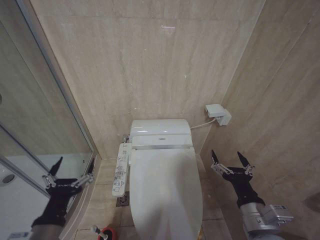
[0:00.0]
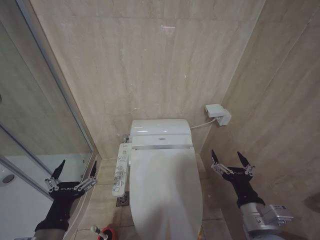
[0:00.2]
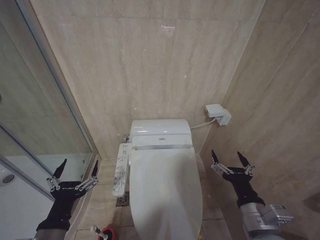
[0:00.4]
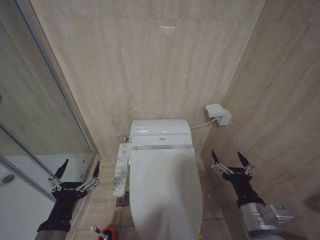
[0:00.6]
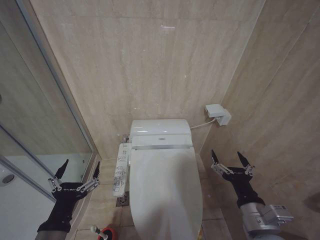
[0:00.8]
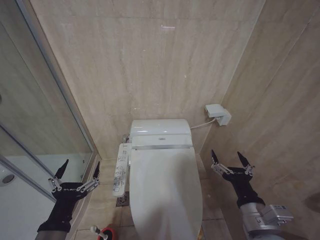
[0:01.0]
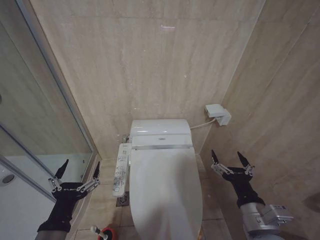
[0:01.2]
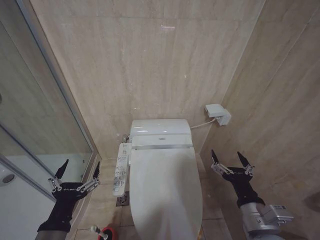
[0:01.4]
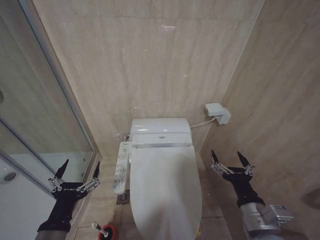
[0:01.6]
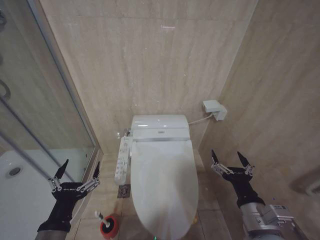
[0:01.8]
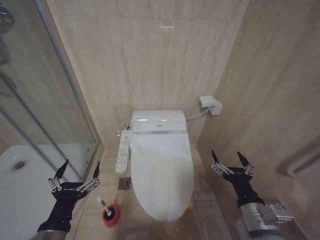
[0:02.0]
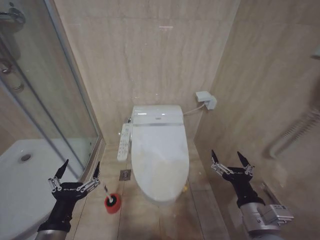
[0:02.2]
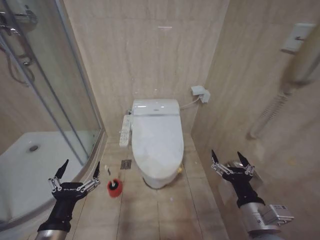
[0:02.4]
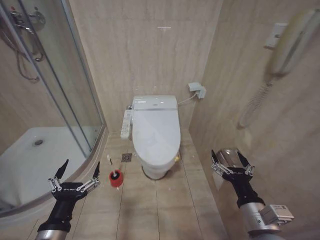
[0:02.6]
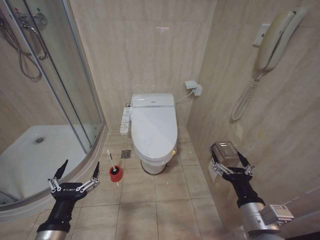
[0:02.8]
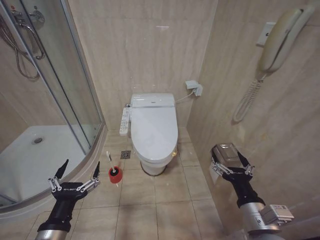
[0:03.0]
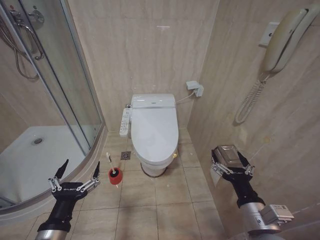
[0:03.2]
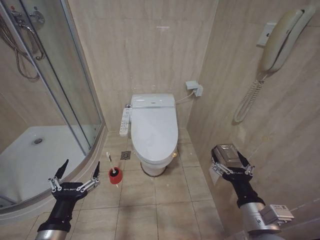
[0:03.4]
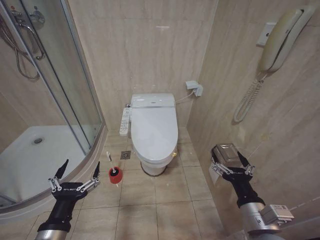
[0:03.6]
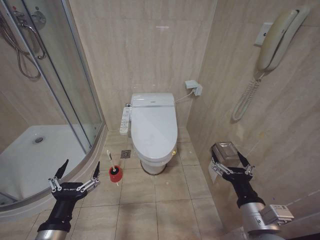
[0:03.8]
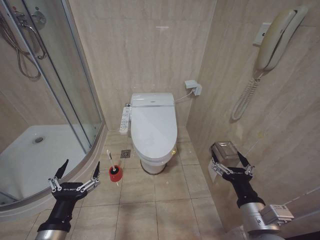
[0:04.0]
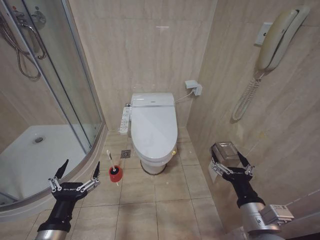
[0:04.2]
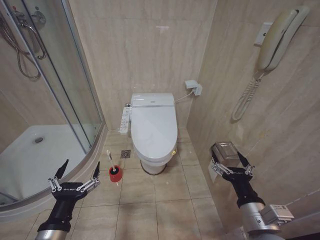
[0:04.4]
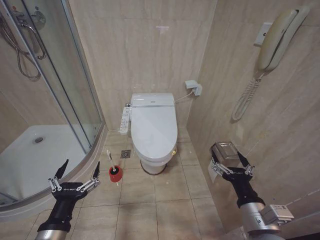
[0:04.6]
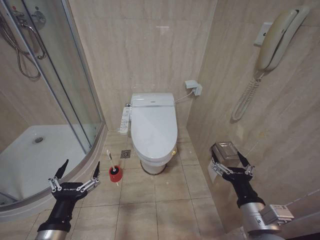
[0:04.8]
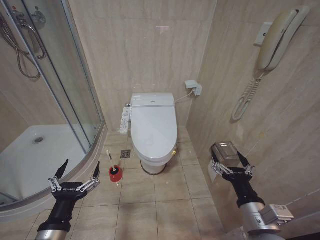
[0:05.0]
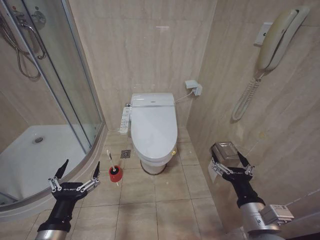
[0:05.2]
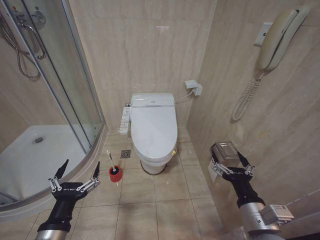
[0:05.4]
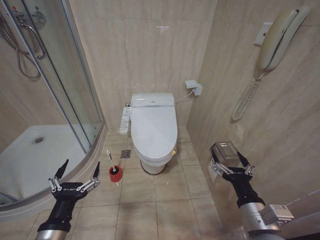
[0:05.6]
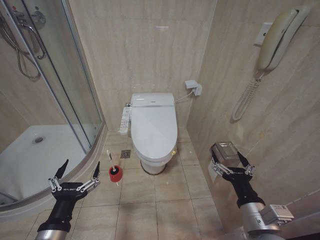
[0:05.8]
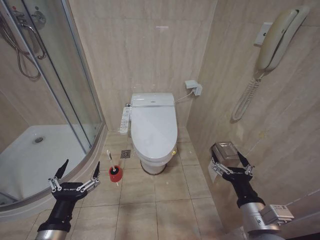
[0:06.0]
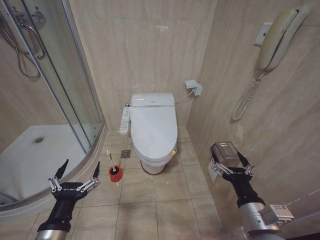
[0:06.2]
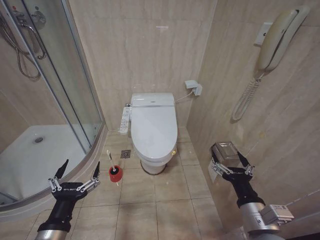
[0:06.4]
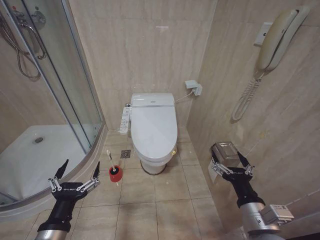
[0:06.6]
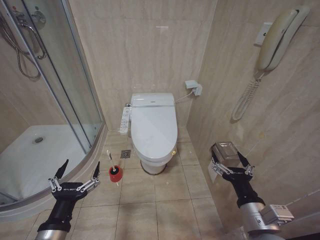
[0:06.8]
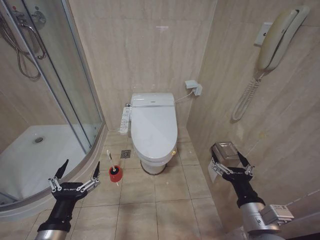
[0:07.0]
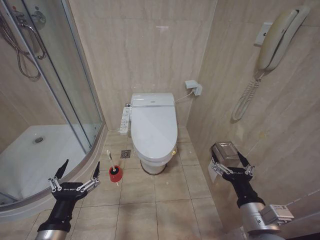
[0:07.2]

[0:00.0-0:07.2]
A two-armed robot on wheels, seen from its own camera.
Task of the whole recording: Open the toilet lid, clean the toilet bowl with a toilet brush, close the toilet lid, and flush.
0:00.0 to 0:01.4: The grippers make only small movements.
0:02.8 to 0:07.2: The two grippers keep their place.

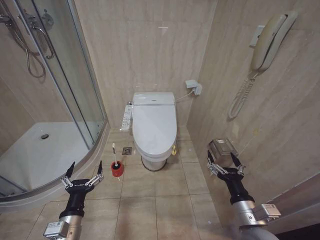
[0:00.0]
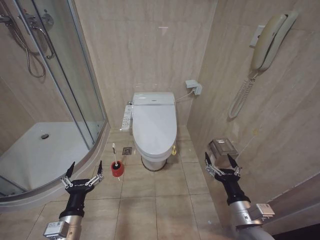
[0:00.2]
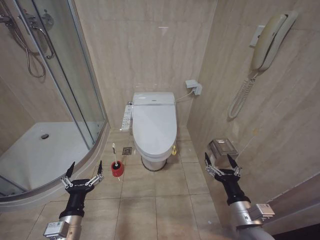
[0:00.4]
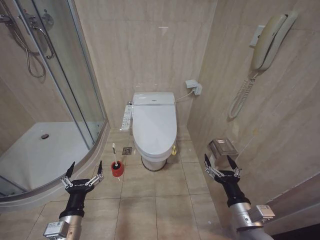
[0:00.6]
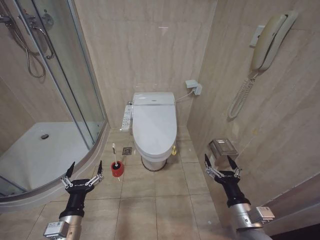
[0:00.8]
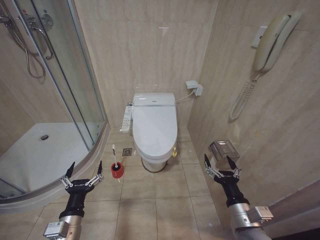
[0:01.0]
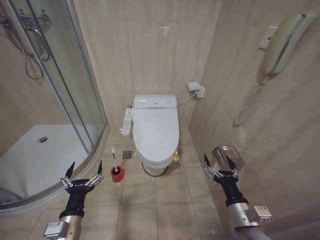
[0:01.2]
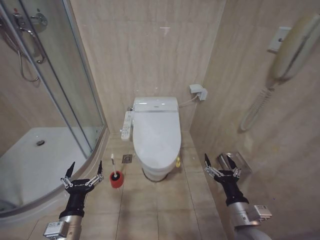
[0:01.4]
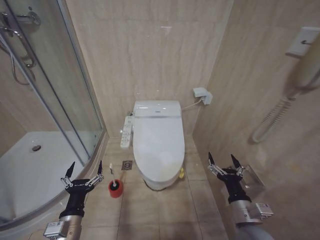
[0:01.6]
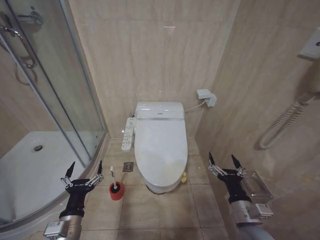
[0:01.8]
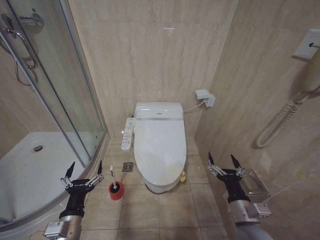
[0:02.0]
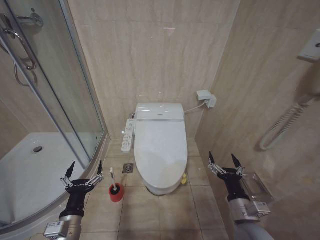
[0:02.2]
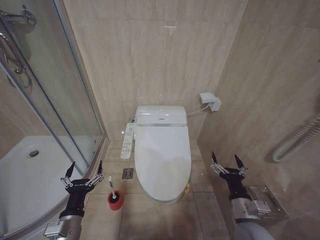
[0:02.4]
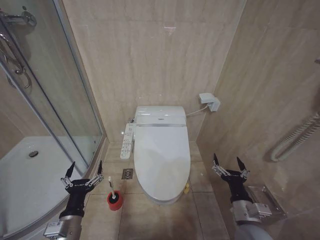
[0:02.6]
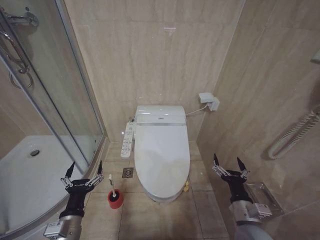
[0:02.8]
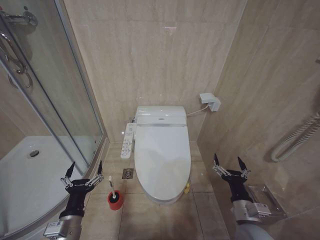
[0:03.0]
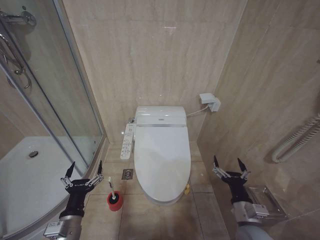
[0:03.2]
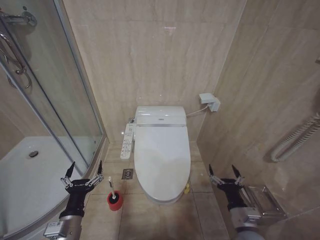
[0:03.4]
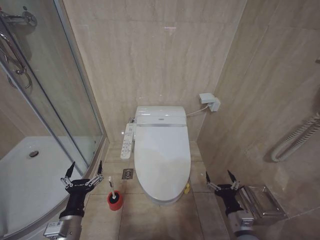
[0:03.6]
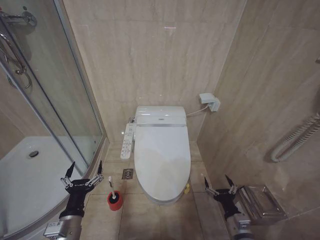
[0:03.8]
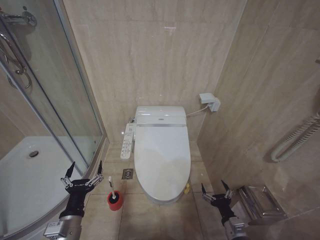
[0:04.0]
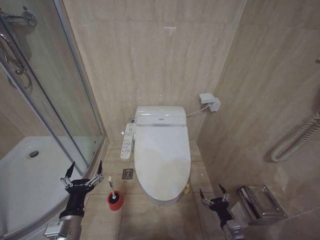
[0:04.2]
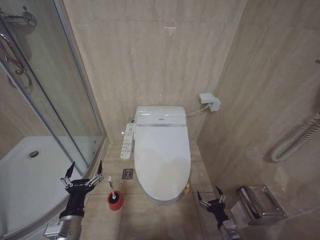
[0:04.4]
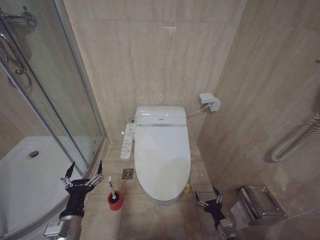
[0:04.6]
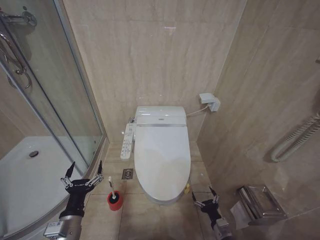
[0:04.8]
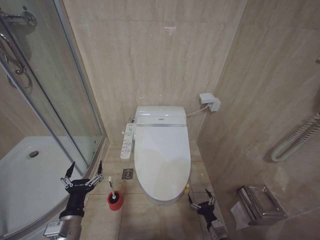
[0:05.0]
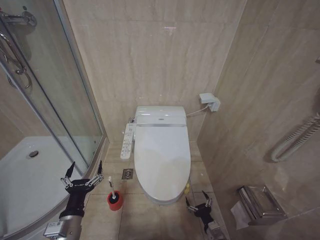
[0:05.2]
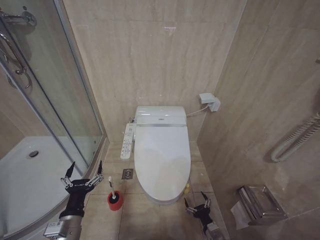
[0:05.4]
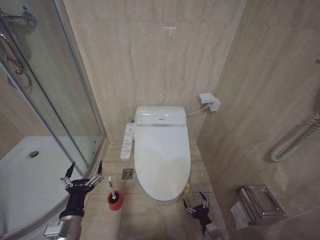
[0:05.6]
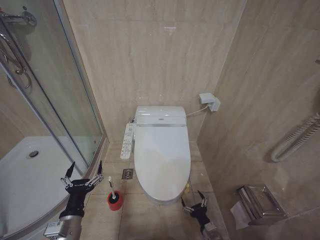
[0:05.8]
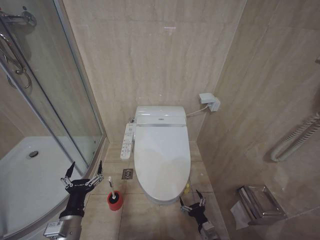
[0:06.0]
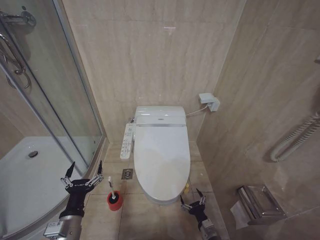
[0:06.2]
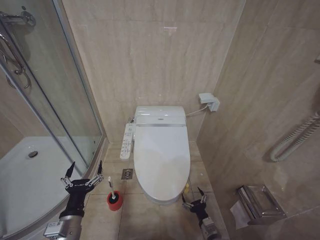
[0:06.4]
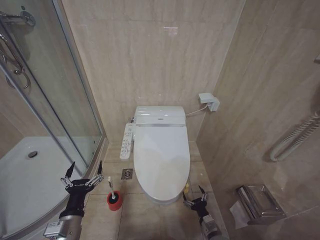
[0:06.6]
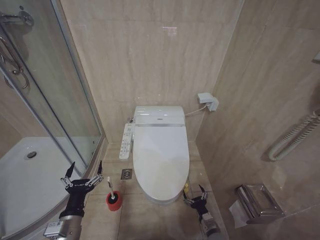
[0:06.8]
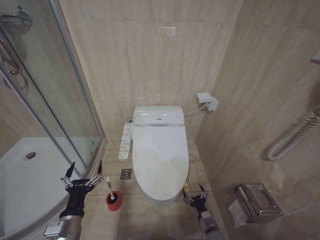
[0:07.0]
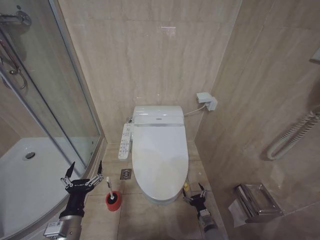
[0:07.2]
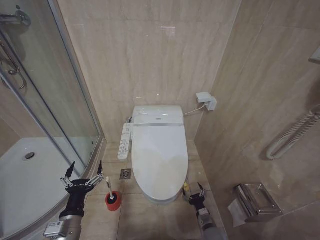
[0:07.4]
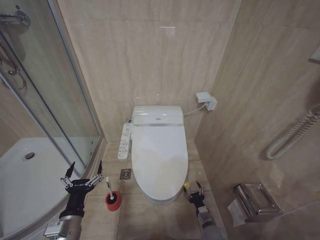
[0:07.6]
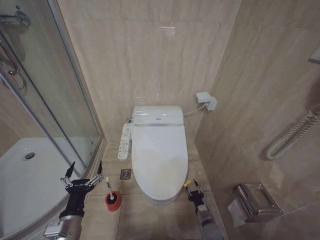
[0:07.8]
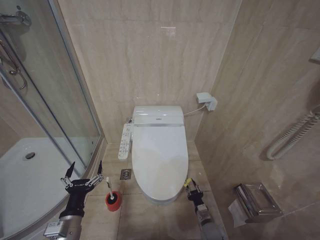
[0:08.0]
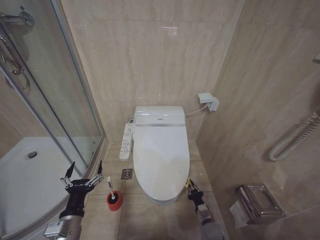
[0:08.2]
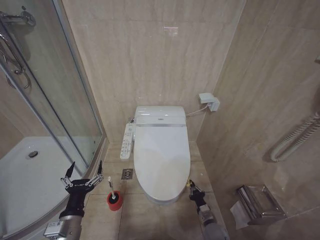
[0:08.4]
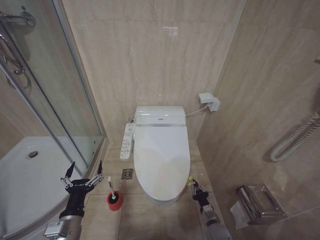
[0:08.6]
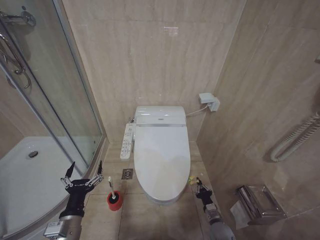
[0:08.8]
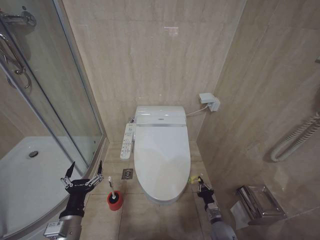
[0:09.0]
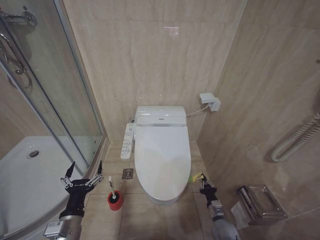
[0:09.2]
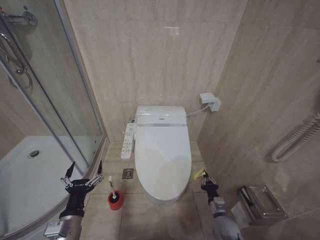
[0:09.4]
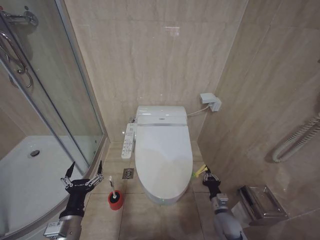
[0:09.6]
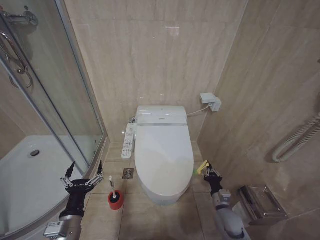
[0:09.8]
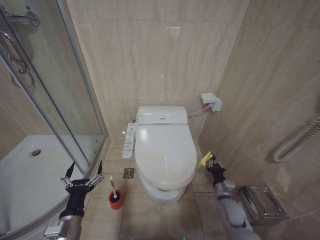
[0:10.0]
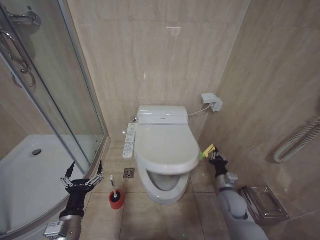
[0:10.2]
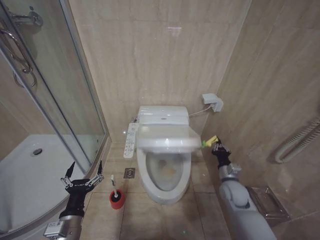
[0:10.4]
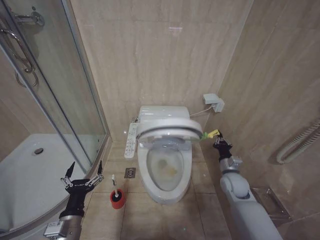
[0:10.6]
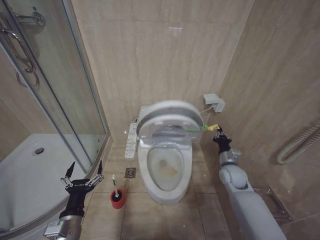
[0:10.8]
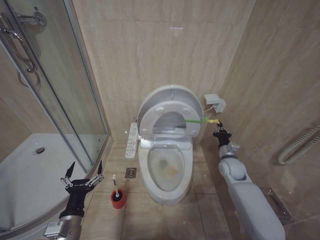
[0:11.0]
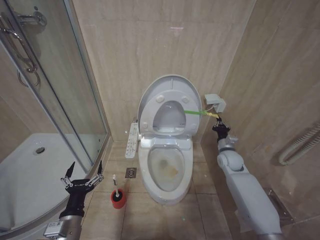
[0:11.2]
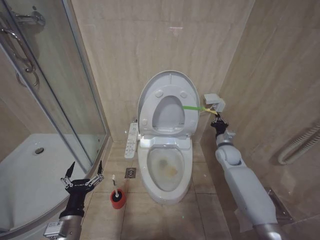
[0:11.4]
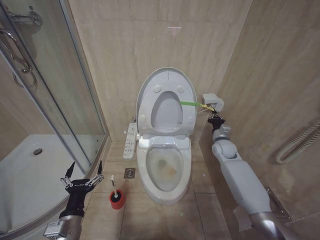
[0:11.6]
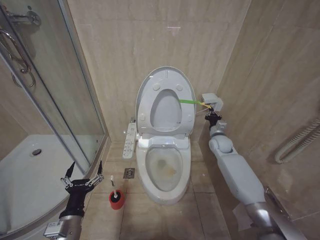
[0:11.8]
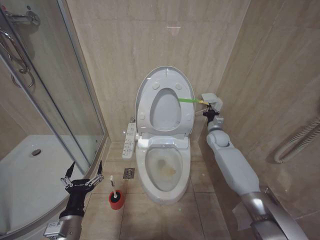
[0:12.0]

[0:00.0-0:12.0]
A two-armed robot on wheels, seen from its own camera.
Task of the whole recording: Open the toilet lid, clean the toilet bowl with a toilet brush, close the toilet lid, and flush.
0:01.6 to 0:03.0: There are only small adjustments of the grippers.
0:03.0 to 0:04.4: The right gripper shifts about 15 cm downward.
0:04.4 to 0:06.0: The right gripper shifts roughly 5 cm to the left.
0:06.0 to 0:07.6: The right gripper goes roughly 5 cm forward.
0:07.6 to 0:09.0: The right gripper closes up.
0:09.0 to 0:10.4: The right gripper goes some 20 cm upward and forward.
0:10.4 to 0:12.0: The right gripper heads forward and upward, covering roughly 25 cm.

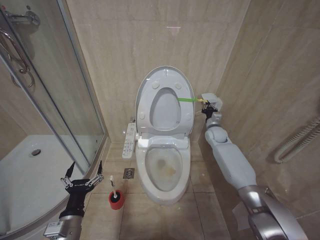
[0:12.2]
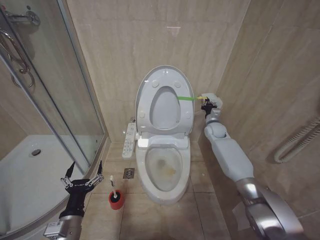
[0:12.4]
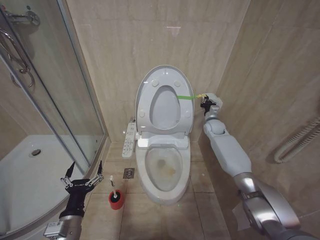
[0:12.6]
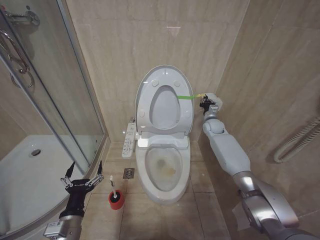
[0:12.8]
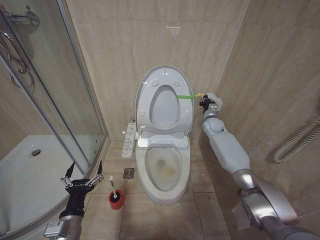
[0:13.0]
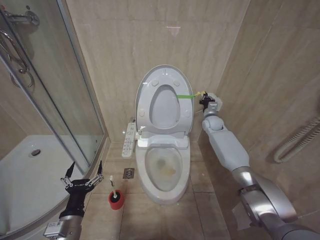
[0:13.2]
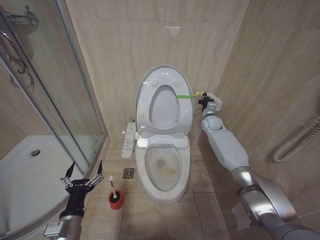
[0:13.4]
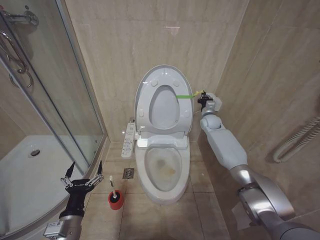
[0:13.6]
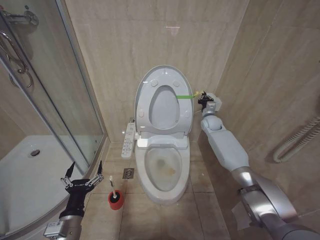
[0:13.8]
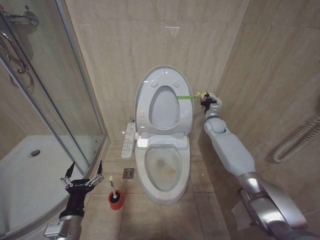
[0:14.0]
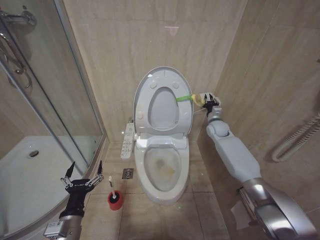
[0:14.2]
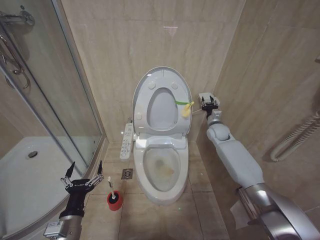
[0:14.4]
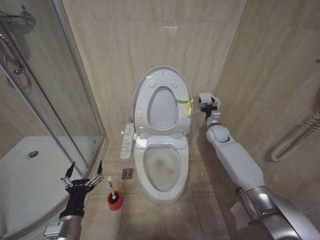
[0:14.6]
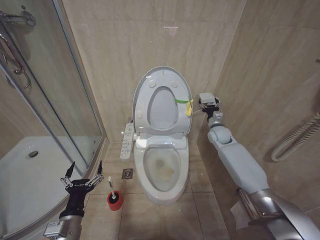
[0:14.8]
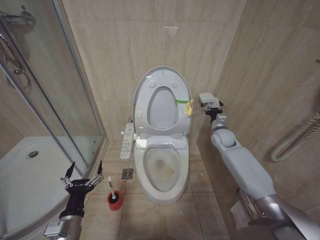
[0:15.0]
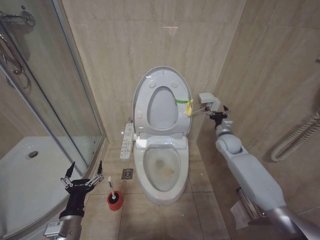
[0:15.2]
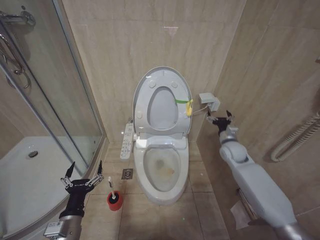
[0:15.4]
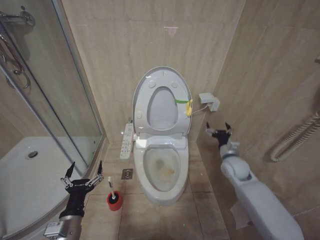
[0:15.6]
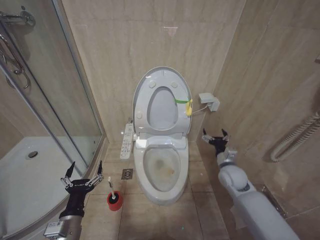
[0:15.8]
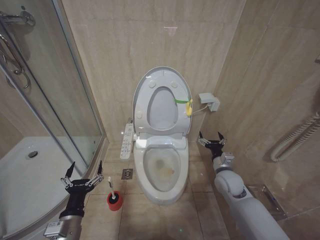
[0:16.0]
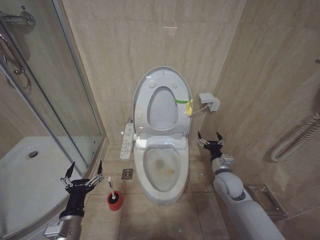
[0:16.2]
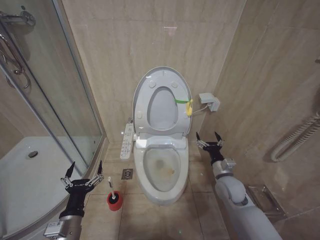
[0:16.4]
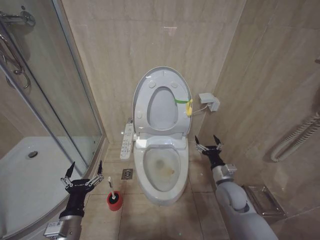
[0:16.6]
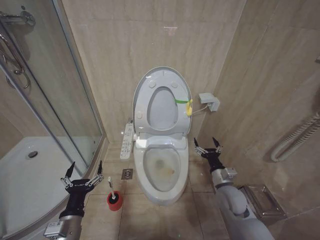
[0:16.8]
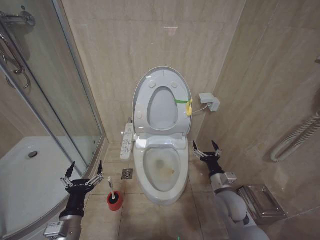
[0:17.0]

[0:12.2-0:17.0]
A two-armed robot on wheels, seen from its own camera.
Task of the whole recording: Open the toilet lid, clean the toilet bowl with a toilet brush, close the toilet lid, and flush.
0:12.2 to 0:13.8: The right gripper moves forward, approximately 5 cm.
0:13.8 to 0:15.4: The right gripper moves backward, some 15 cm, and opens.
0:15.4 to 0:17.0: The right gripper travels backward, downward and to the left by some 20 cm.
